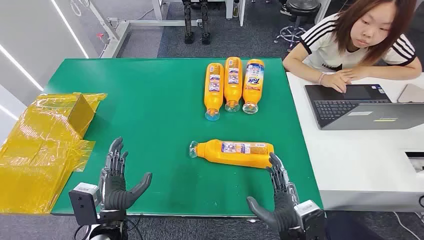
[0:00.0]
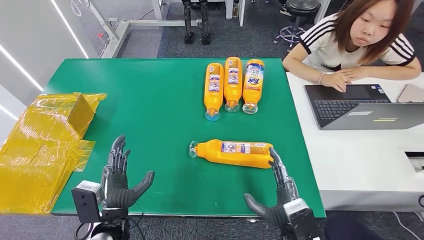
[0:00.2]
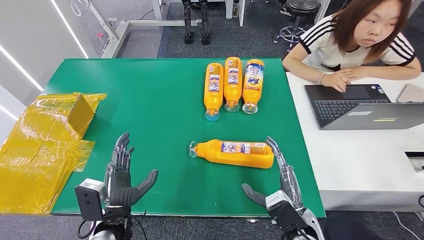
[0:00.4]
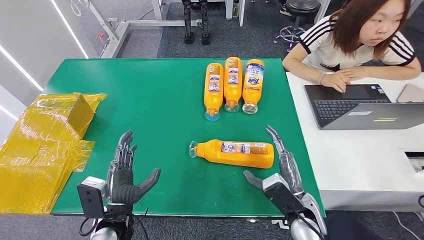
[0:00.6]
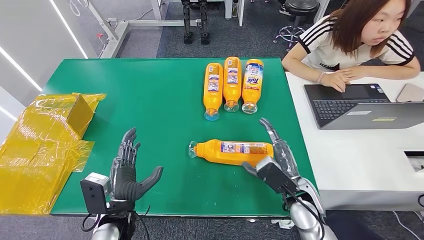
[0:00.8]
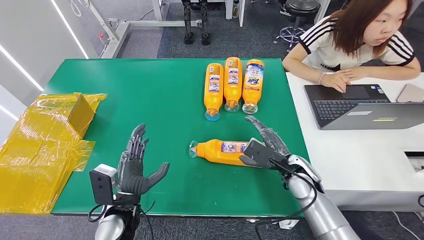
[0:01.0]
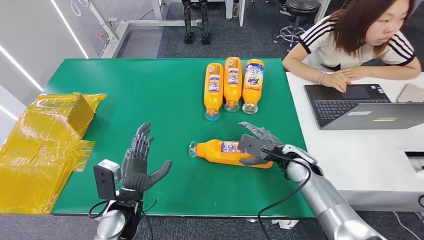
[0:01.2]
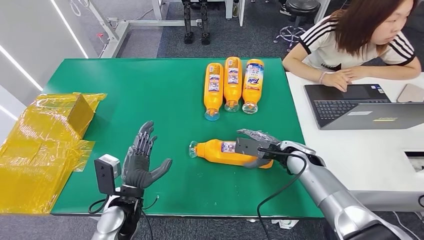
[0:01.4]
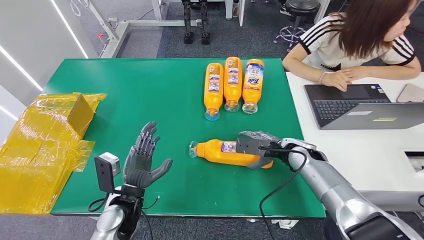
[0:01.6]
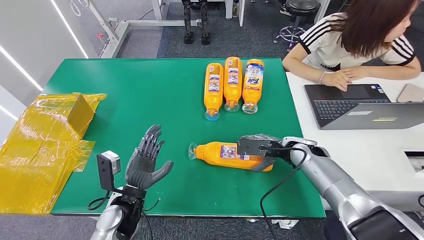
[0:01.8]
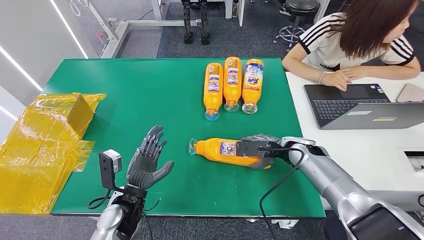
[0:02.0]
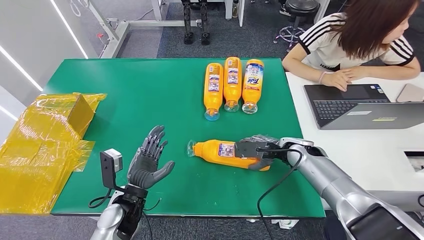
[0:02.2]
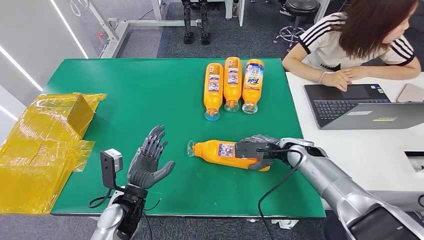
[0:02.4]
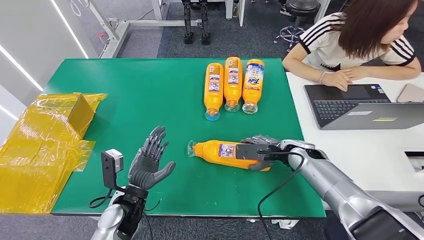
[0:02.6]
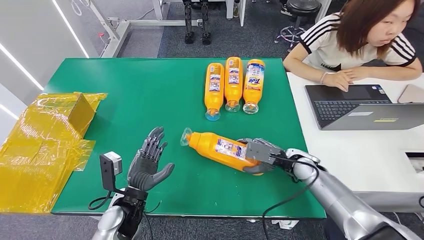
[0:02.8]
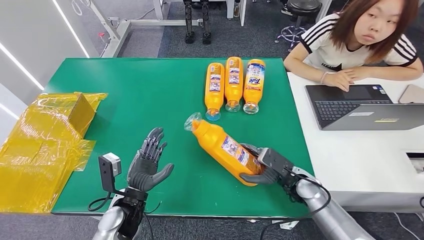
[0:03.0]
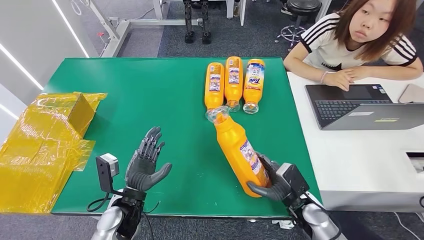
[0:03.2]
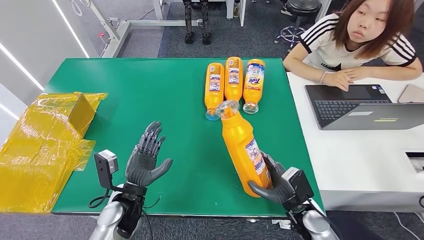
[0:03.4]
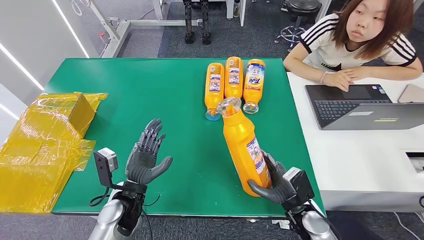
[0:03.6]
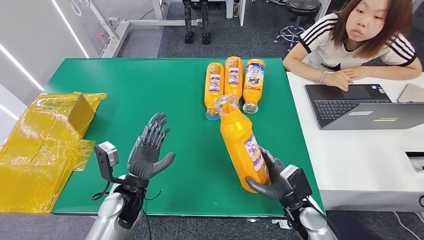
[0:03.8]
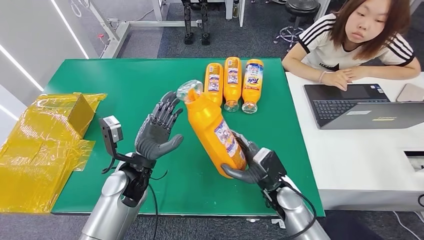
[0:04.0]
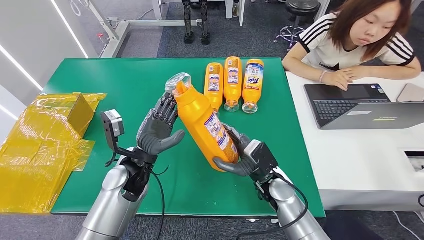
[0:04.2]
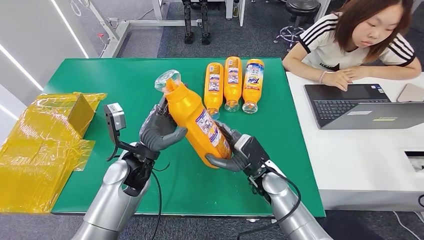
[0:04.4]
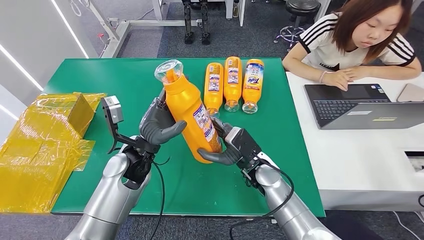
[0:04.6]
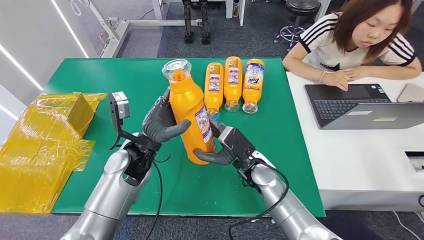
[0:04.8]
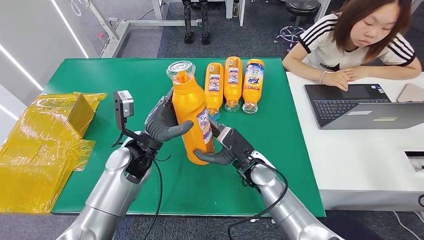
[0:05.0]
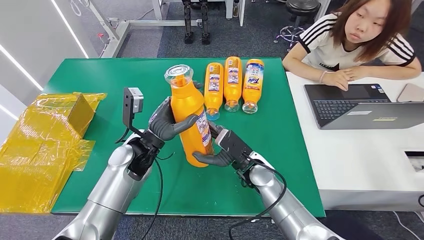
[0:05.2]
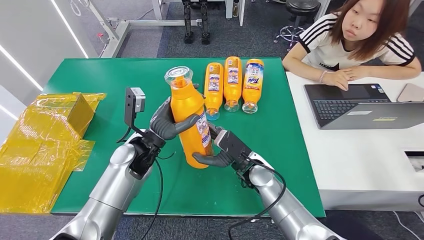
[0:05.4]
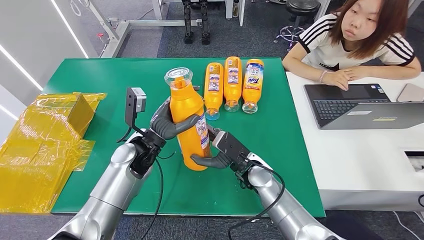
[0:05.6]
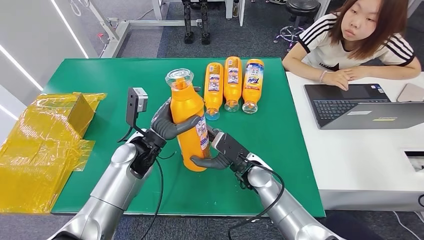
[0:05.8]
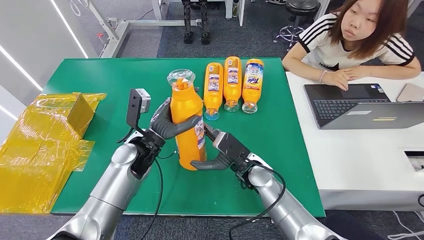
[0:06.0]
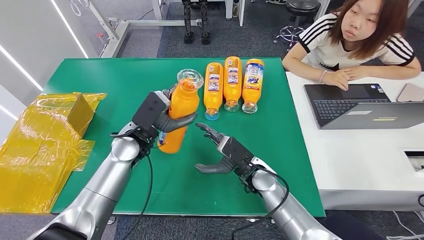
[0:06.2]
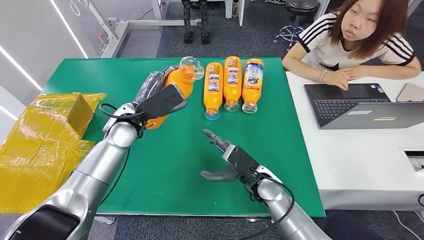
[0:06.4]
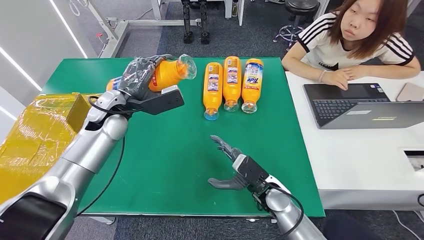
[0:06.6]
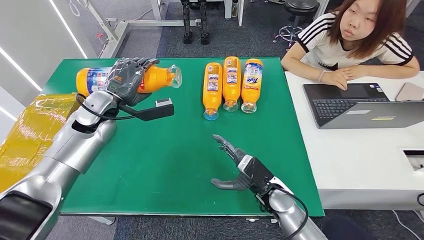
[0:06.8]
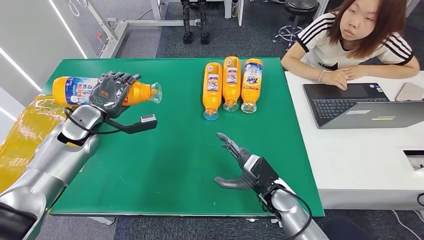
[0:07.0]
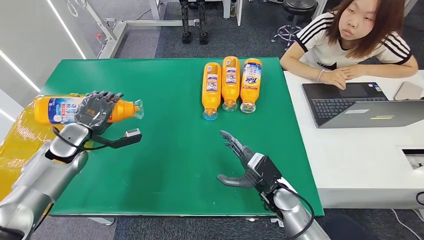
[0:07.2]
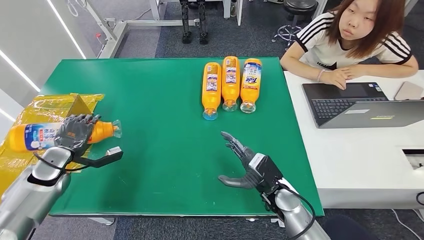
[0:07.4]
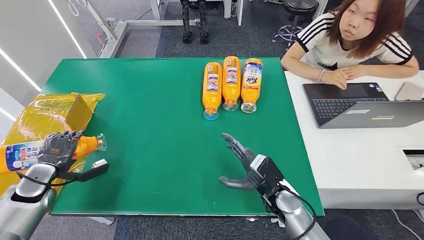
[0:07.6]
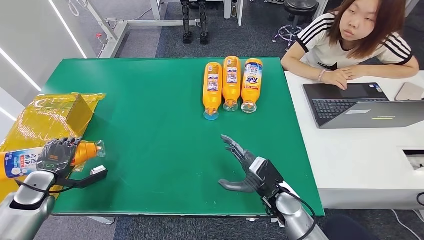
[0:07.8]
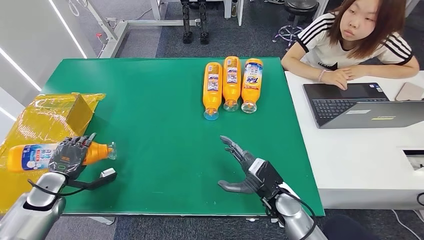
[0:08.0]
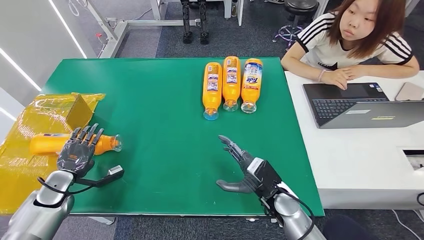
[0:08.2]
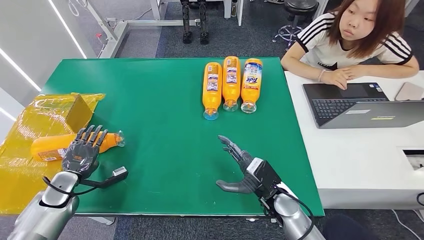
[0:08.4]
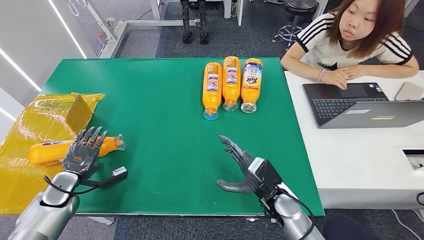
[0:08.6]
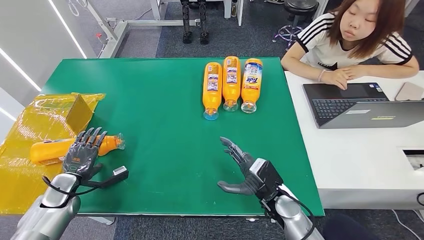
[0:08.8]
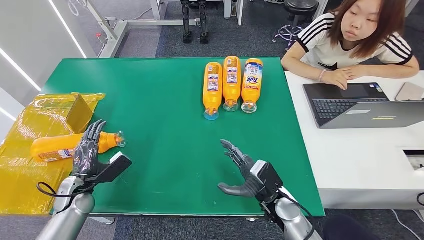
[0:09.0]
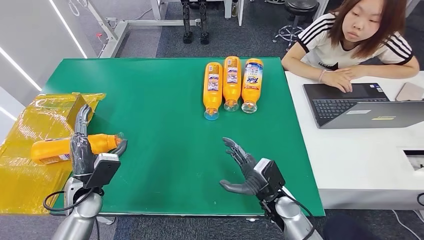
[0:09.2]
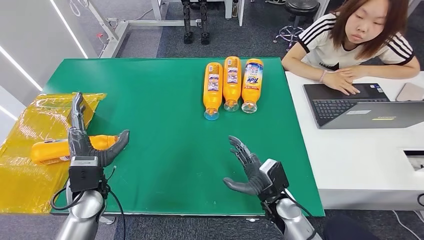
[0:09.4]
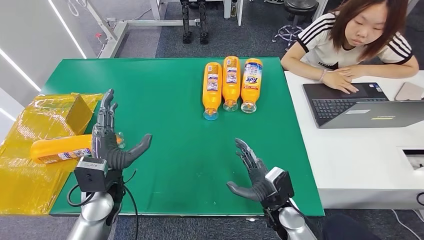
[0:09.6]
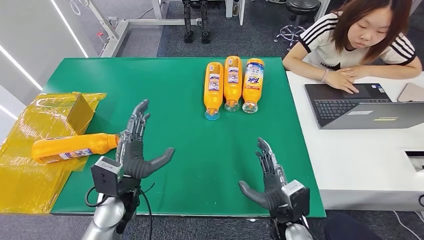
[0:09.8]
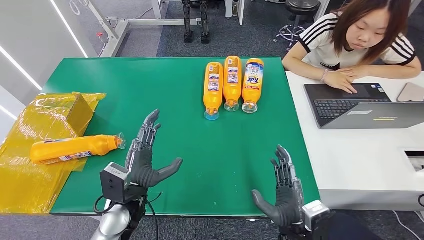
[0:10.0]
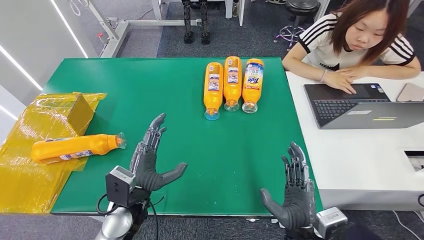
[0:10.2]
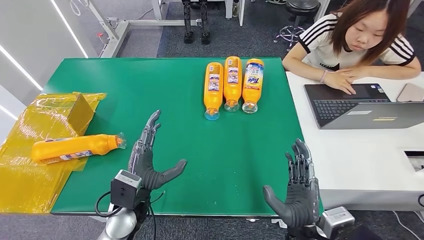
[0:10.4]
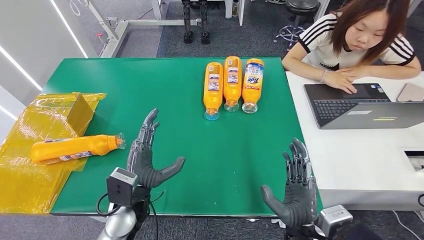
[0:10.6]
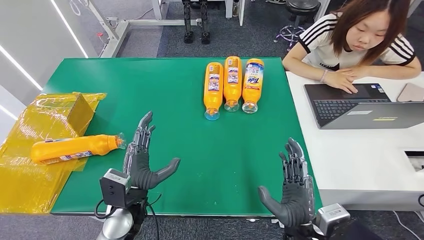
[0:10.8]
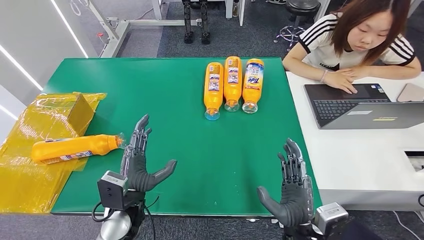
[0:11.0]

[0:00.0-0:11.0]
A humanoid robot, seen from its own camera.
Step, 0:00.0 to 0:05.4: Pick up the bottle from the table.
Step, 0:05.8 to 0:11.0: Turn the bottle to the front side.
0:01.6 to 0:03.2: The right hand moves backward and downward, roughly 15 cm.
0:07.8 to 0:09.4: The left hand moves to the right, roughly 20 cm.
0:09.4 to 0:11.0: The left hand heads to the right, covering some 10 cm; the right hand heads backward and upward, covering approximately 15 cm.

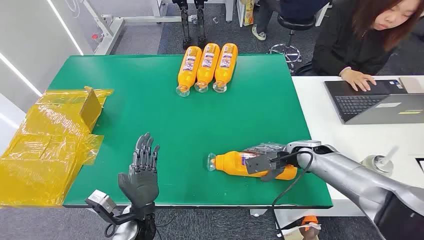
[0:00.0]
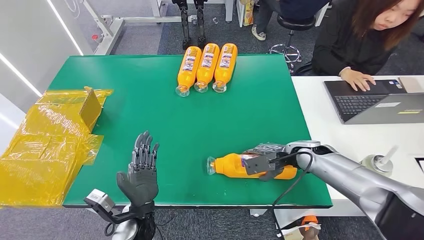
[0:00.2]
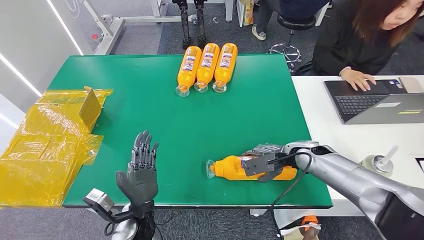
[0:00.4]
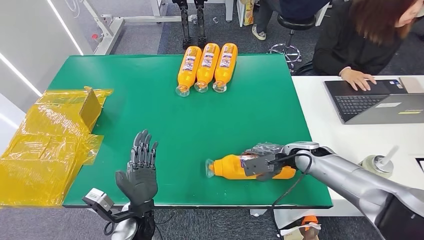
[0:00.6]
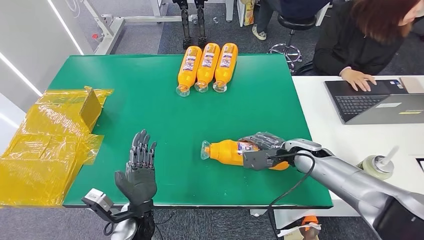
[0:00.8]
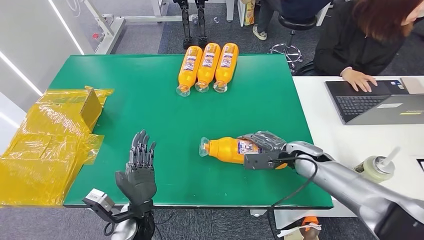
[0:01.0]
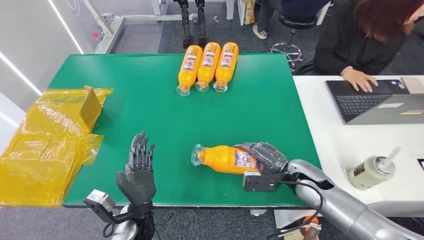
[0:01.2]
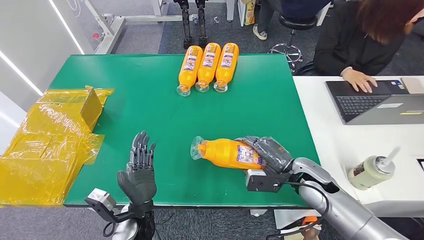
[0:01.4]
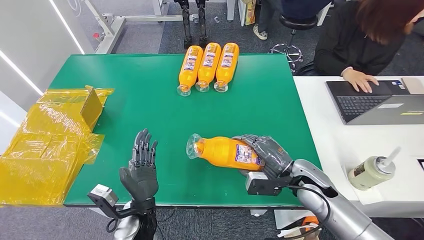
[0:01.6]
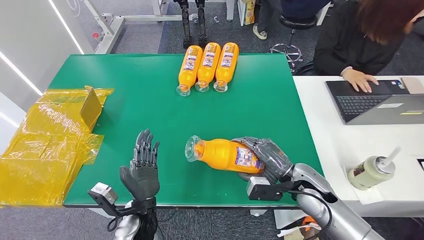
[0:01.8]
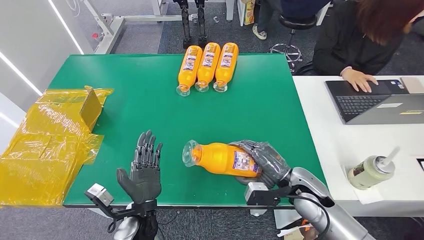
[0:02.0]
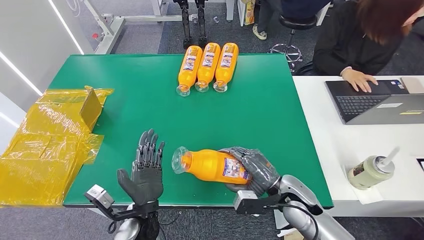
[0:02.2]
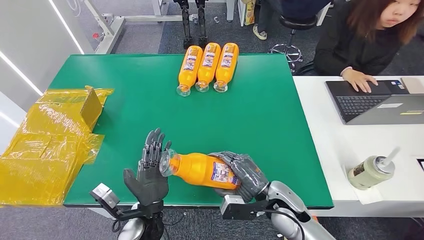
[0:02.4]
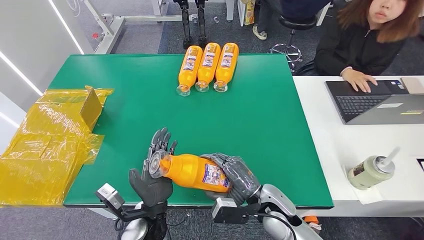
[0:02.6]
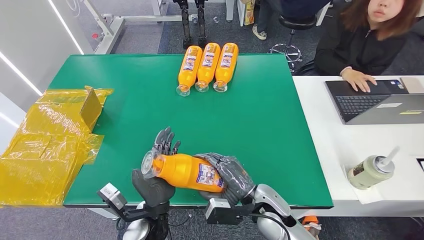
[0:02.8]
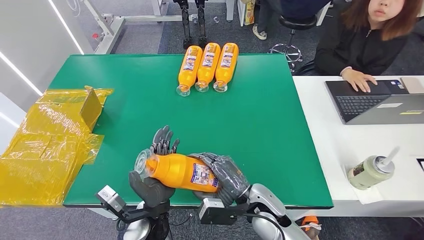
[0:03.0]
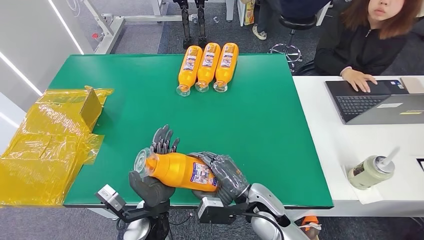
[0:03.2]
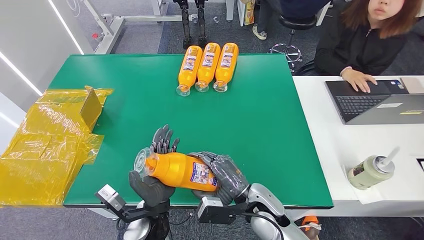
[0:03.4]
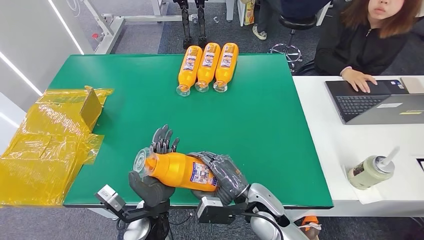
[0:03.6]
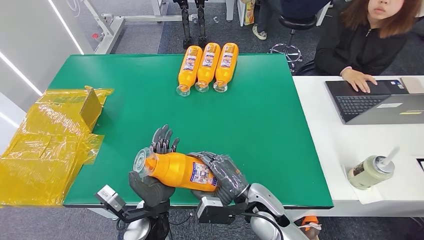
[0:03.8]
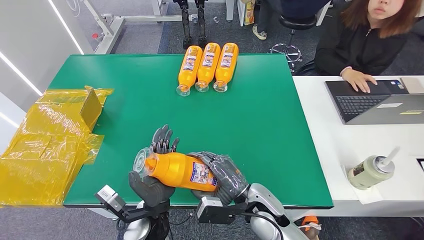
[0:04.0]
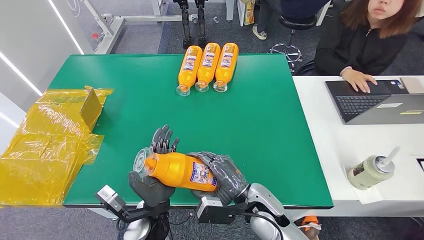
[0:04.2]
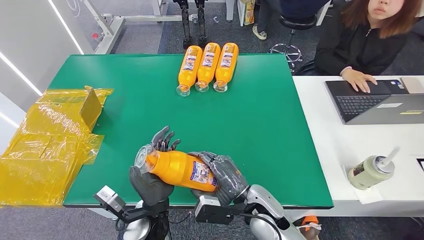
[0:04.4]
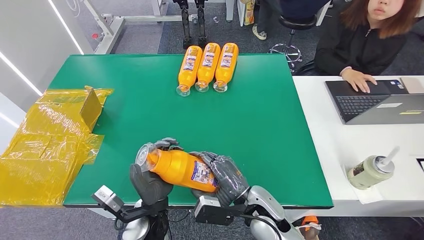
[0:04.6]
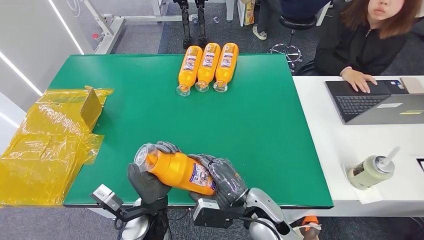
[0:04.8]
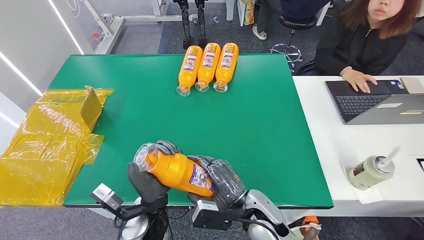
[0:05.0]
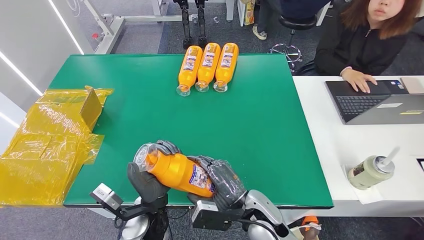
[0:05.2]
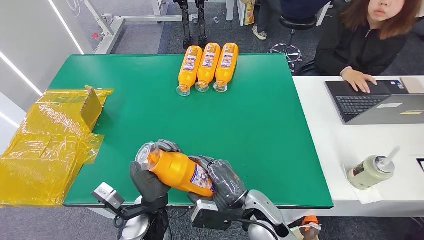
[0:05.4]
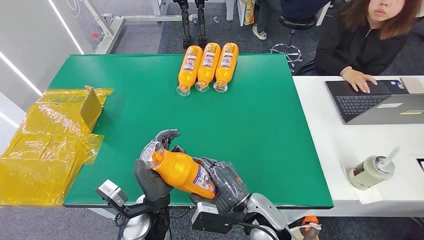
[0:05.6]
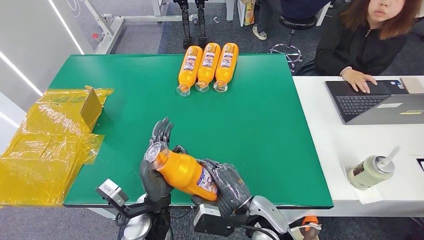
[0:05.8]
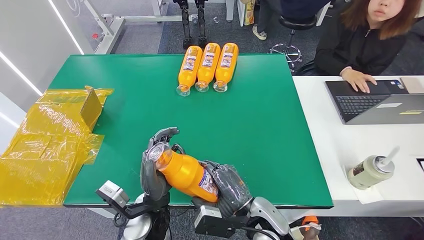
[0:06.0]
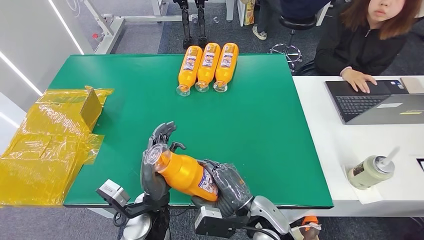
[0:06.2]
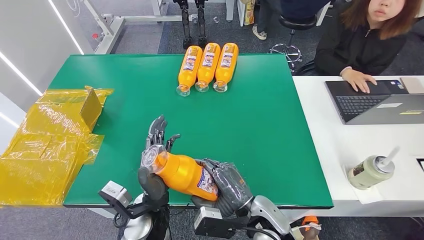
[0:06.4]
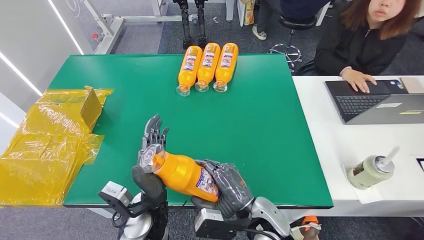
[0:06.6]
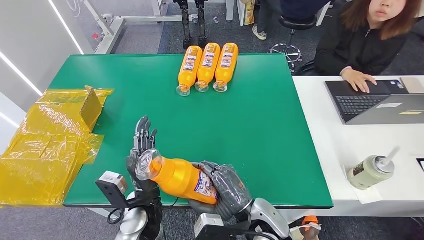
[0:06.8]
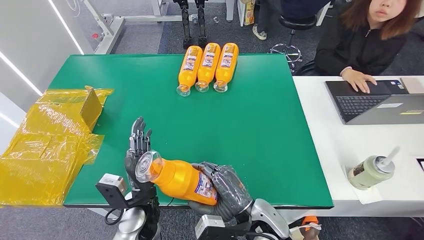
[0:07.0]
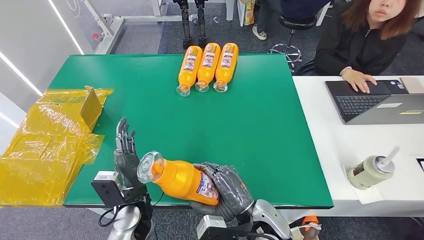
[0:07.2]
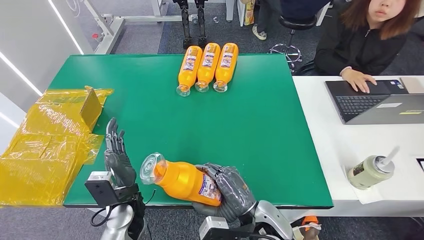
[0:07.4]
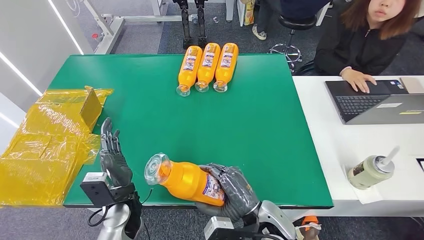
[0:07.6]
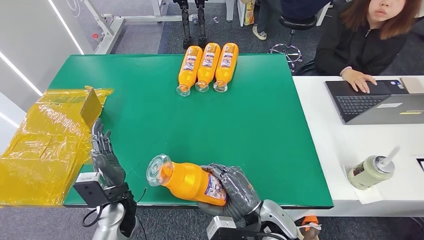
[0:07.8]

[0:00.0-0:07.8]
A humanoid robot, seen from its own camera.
Step, 0:00.0 to 0:05.0: Pick up the bottle from the table.
0:01.6 to 0:03.2: The right hand goes about 15 cm to the left and backward.
0:03.2 to 0:06.2: There are only small adjustments of the hands.
0:06.2 to 0:07.8: The left hand moves to the left, approximately 10 cm.
